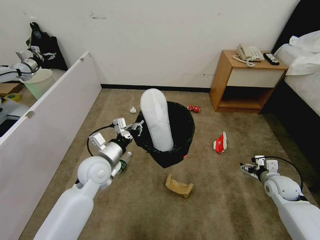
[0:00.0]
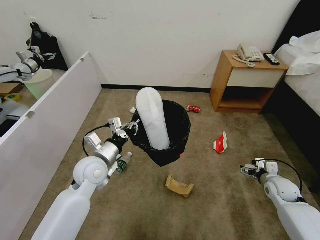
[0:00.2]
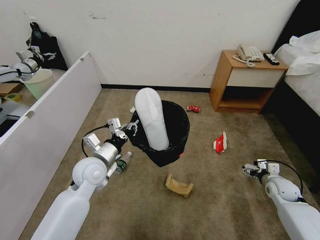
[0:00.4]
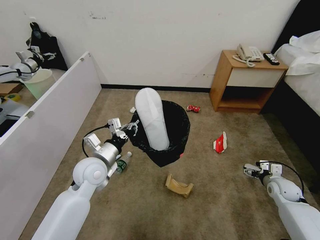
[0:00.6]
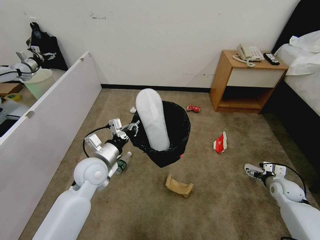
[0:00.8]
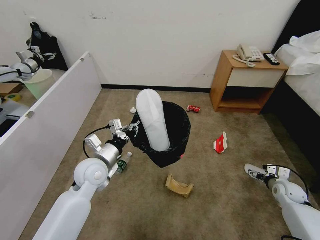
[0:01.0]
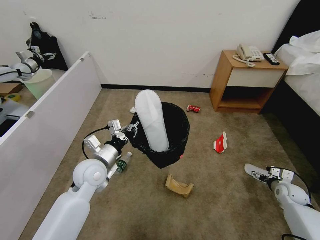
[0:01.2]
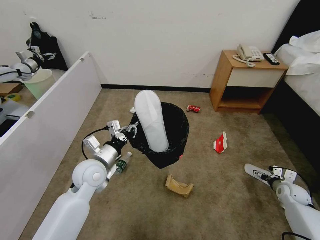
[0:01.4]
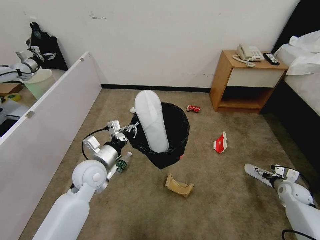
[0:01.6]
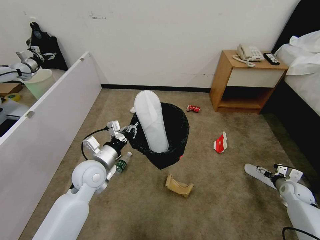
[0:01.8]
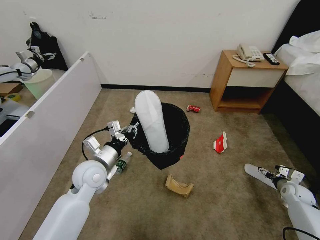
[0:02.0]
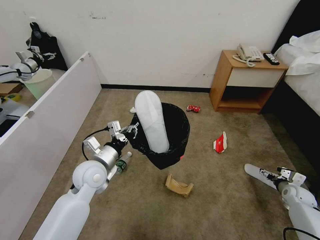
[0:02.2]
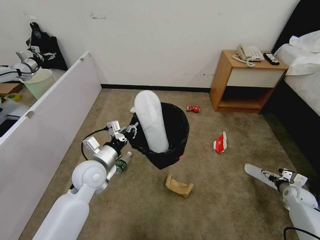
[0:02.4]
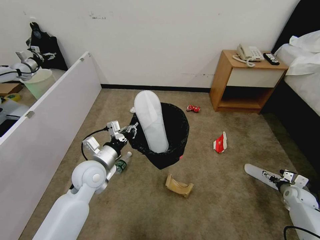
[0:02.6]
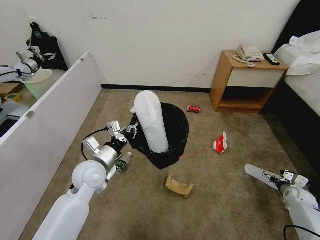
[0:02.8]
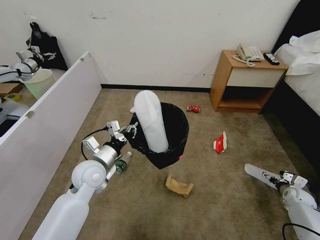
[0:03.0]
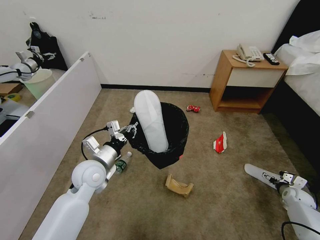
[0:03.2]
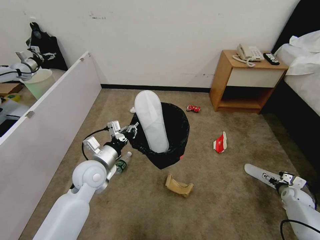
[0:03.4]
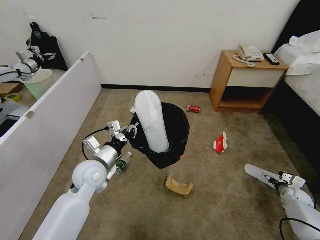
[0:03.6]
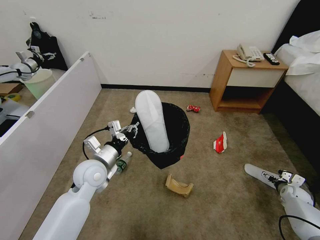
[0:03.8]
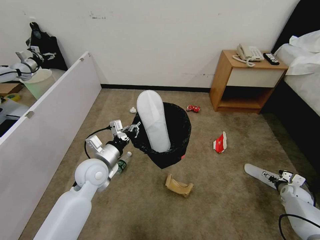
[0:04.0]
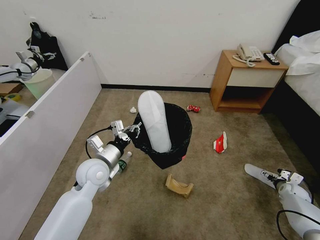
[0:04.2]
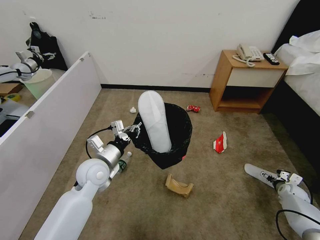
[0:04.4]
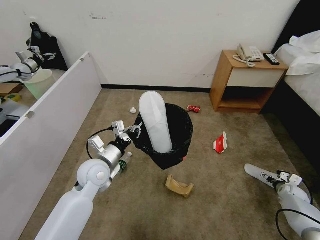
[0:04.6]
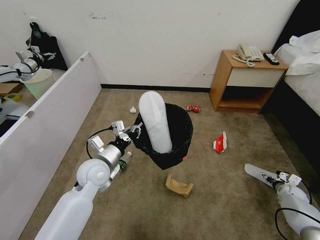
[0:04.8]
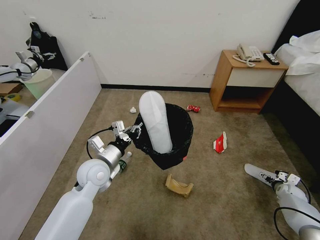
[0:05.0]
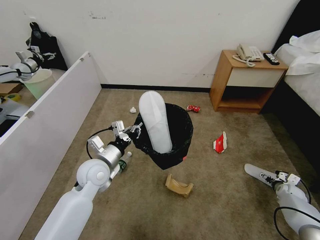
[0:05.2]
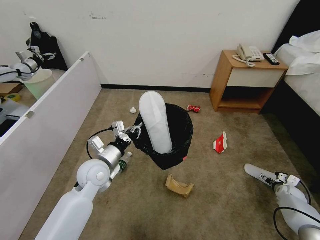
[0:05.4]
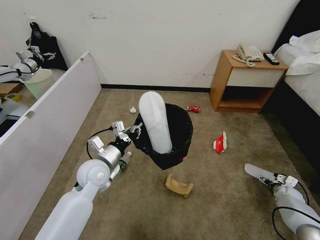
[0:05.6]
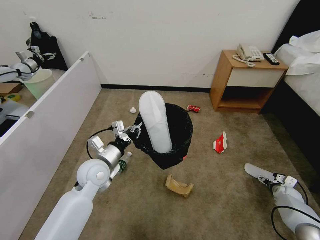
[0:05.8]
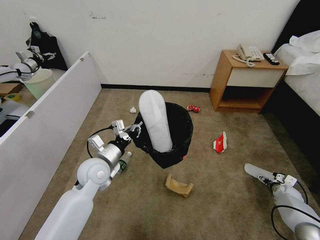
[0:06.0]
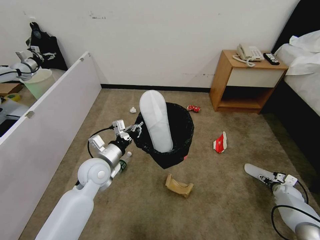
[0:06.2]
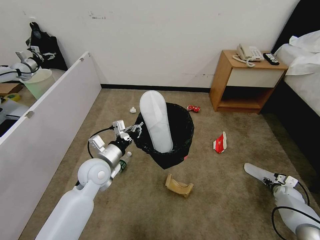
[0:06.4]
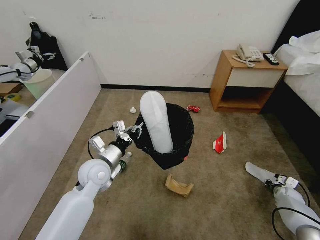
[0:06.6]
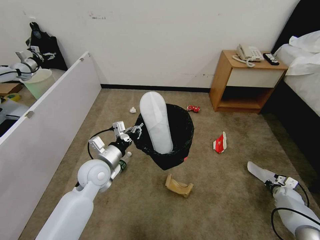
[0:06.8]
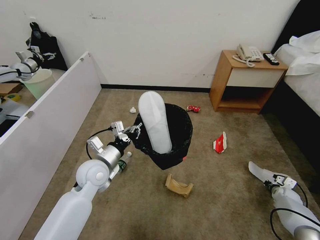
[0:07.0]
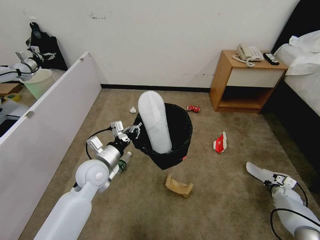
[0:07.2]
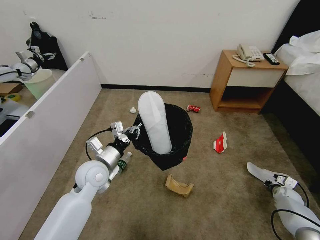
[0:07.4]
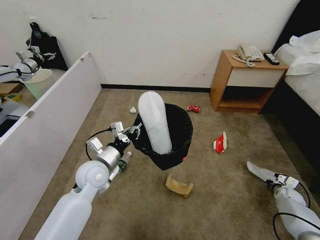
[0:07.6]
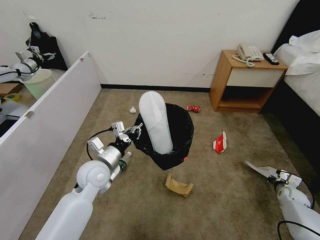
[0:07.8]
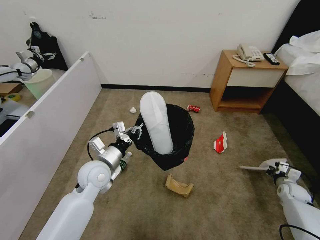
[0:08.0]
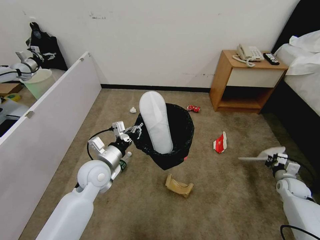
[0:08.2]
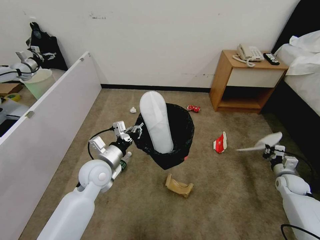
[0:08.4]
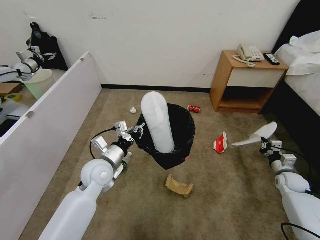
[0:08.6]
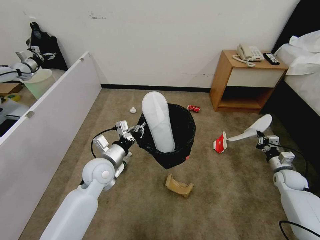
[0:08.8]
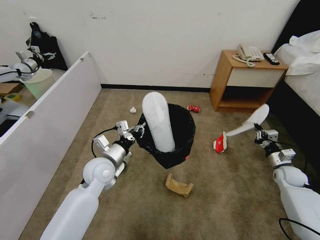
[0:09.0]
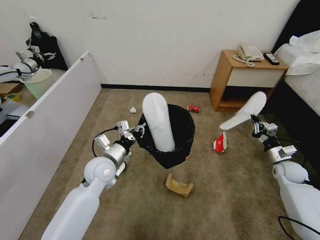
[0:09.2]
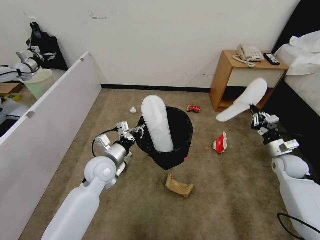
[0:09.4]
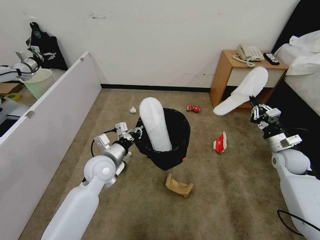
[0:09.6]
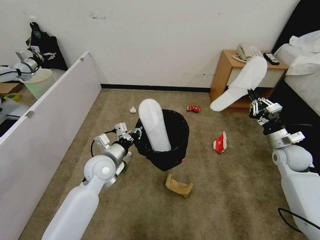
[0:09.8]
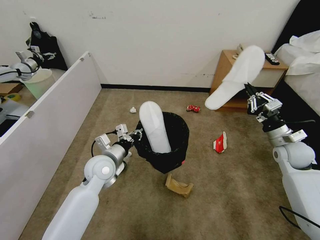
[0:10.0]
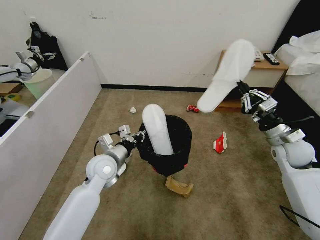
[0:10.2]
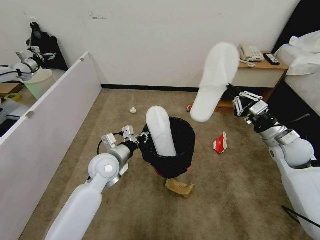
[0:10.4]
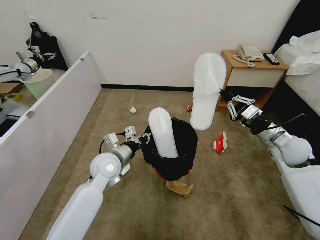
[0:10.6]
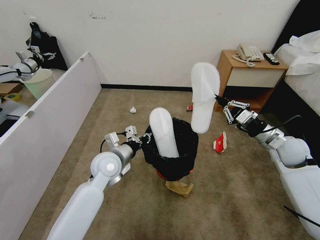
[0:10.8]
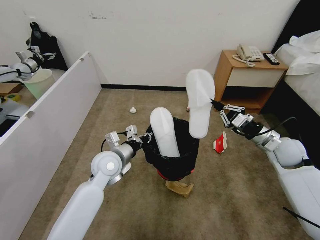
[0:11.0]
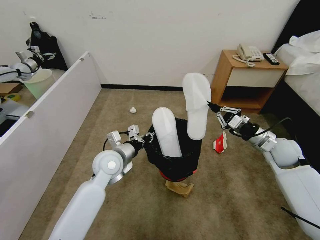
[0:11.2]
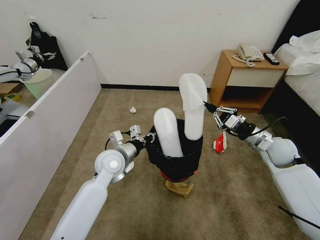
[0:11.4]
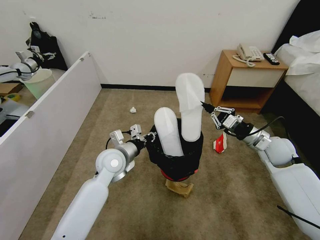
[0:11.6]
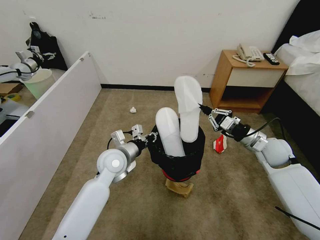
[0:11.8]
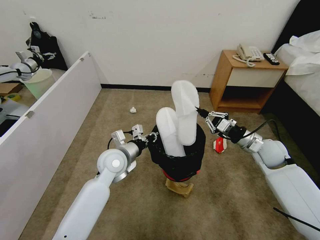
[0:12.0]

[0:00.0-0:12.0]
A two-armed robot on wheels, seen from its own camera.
Task of the whole recording: Pick up the trash bin, then pick up the garbage from the floor and place it into the trash bin.
0:00.0 to 0:01.6: The right gripper shifts some 10 cm to the right and downward.
0:01.6 to 0:03.0: The right gripper ends up some 5 cm from where it was.
0:03.0 to 0:06.0: The grippers move only a little.
0:06.0 to 0:07.6: The right gripper closes.
0:07.6 to 0:09.0: The right gripper moves upward and to the left, some 15 cm.
0:09.0 to 0:10.4: The right gripper heads upward and to the left, covering some 20 cm.
0:10.4 to 0:12.0: The right gripper moves roughly 5 cm.

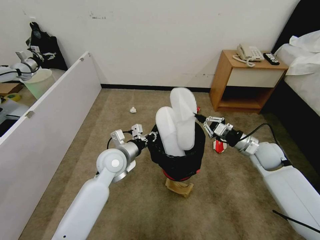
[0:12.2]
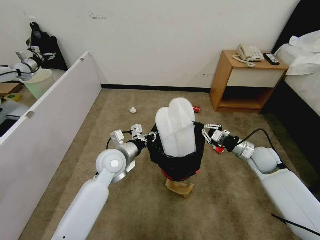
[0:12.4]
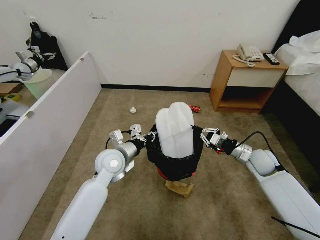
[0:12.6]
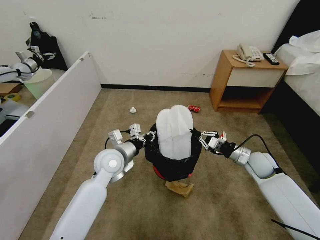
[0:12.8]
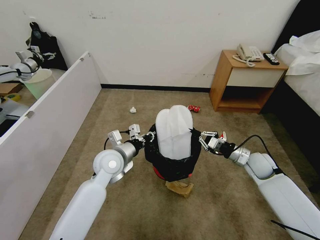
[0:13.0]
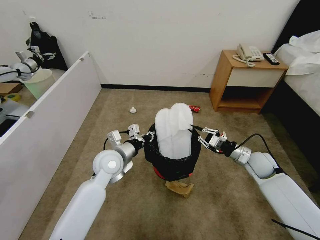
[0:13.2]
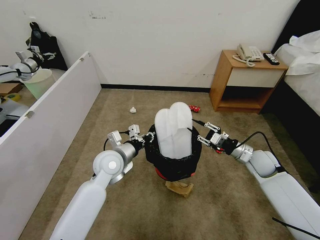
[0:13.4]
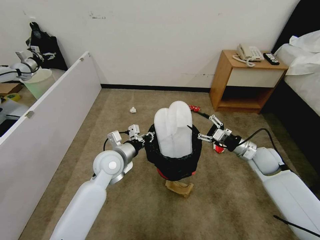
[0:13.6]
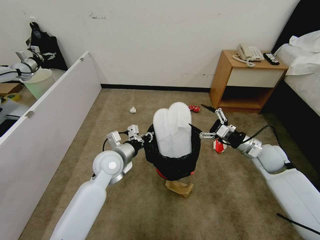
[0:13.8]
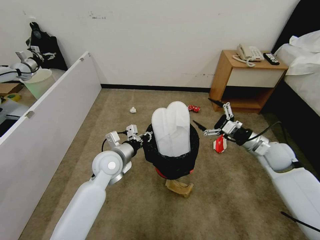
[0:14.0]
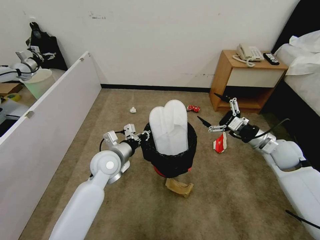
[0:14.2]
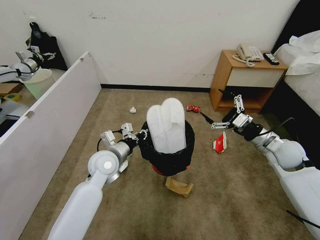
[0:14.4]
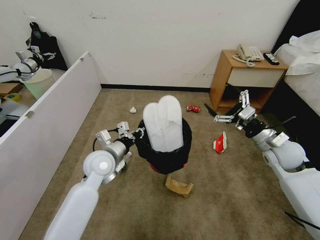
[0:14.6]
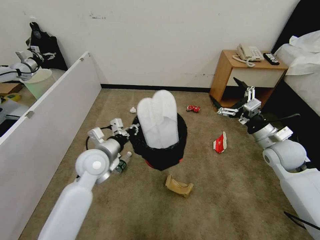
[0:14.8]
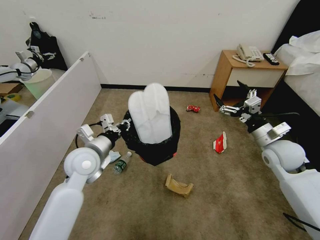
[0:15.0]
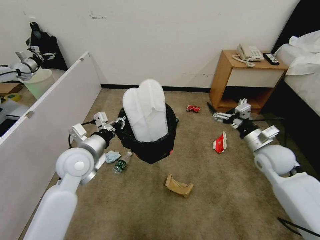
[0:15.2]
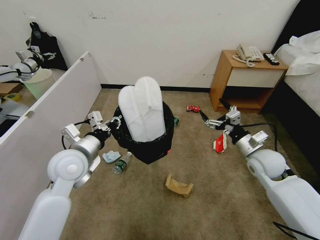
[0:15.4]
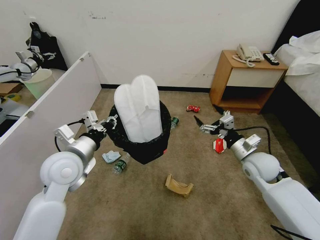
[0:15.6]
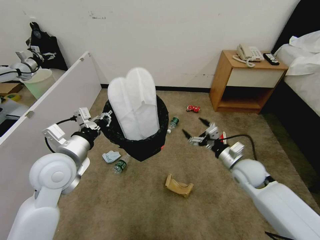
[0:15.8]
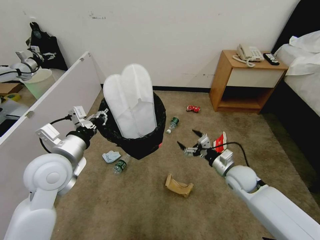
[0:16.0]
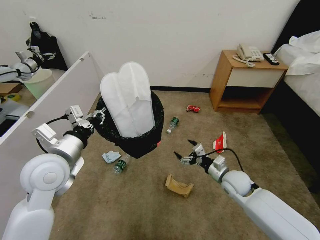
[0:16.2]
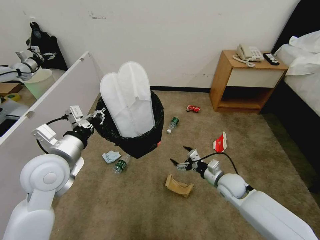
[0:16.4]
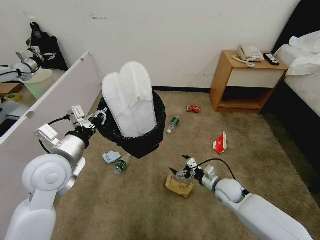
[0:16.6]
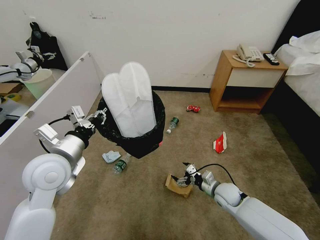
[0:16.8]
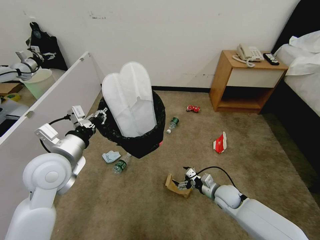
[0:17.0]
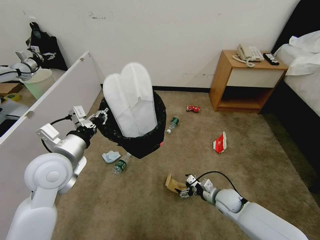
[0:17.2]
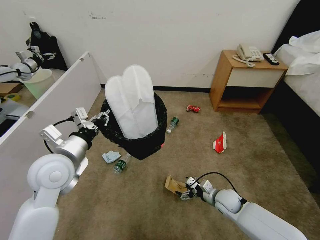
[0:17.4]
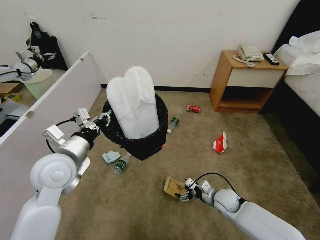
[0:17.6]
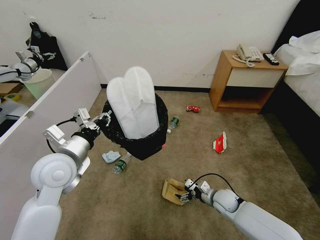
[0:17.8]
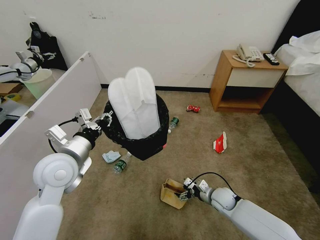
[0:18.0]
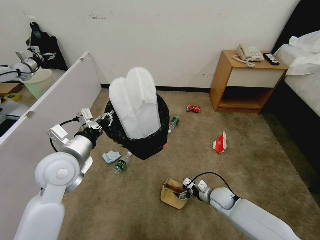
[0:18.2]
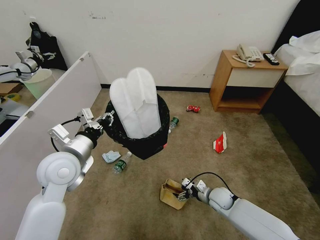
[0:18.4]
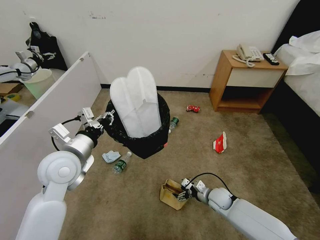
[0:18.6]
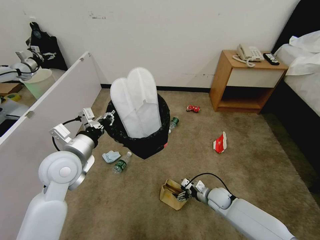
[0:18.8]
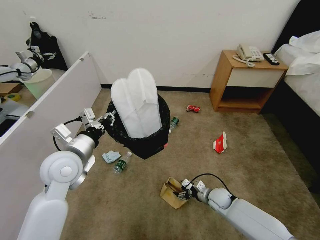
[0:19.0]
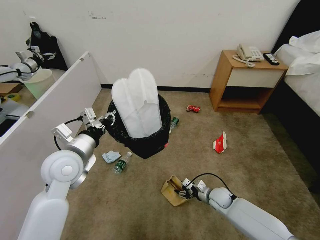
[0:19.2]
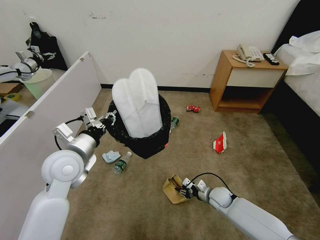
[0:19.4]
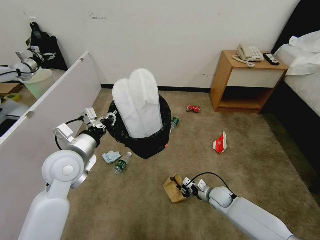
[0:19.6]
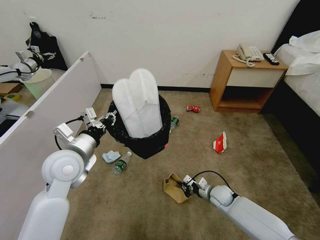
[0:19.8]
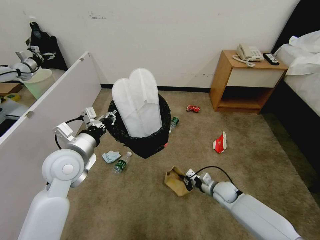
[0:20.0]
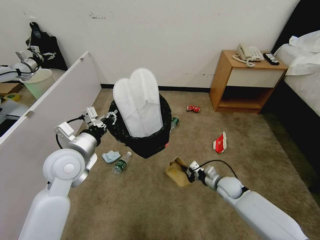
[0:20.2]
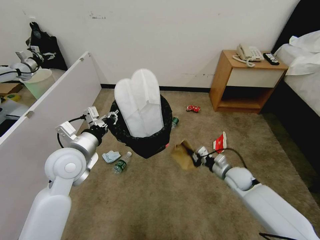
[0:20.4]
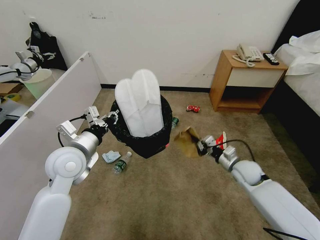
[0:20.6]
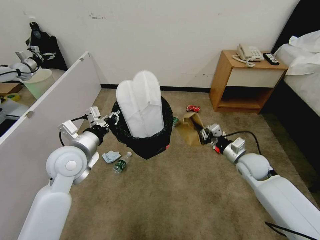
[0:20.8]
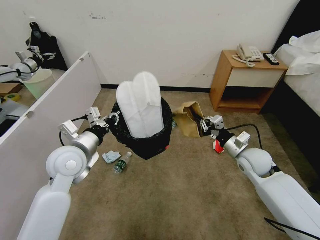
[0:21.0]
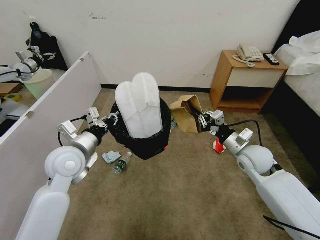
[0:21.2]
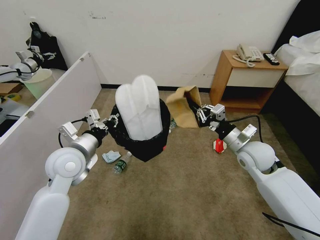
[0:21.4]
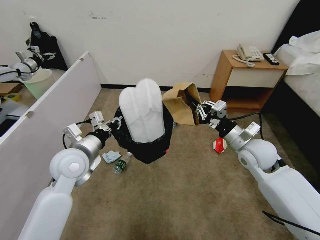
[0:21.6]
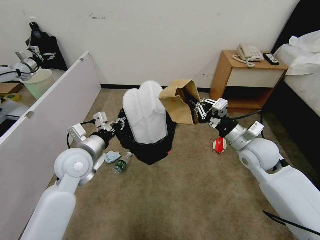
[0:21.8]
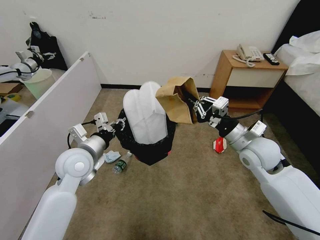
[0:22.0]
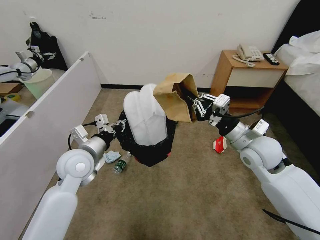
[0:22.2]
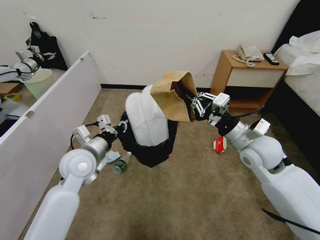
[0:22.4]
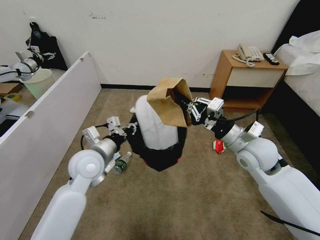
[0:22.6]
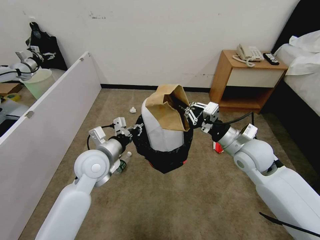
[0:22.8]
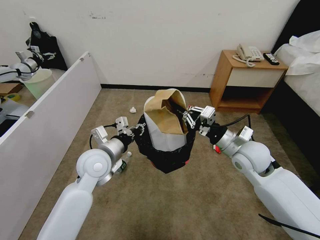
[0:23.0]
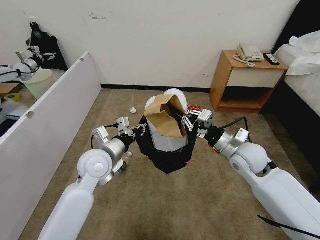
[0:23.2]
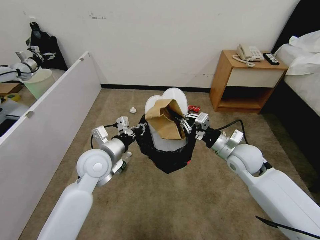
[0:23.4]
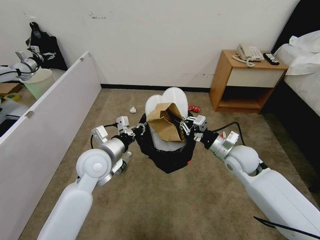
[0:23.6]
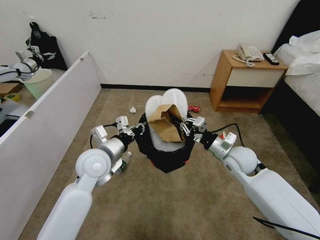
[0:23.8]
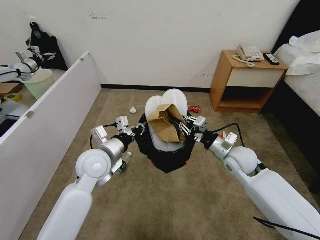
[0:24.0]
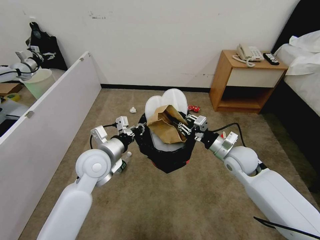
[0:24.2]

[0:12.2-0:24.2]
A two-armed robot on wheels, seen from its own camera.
Task of the whole recording: Pick up the trash bin, then pick up the garbage from the floor and place it into the trash bin.
0:12.2 to 0:13.8: The right gripper opens.
0:13.8 to 0:15.2: The left gripper shifts some 10 cm to the left and upward.
0:15.2 to 0:16.6: The left gripper moves backward, some 5 cm; the right gripper heads downward and to the left, covering roughly 20 cm.
0:16.6 to 0:18.2: The right gripper travels downward by some 5 cm.
0:18.2 to 0:19.8: The right gripper closes.
0:19.8 to 0:21.2: The right gripper moves upward, roughly 25 cm.
0:21.2 to 0:22.6: The left gripper moves some 5 cm. Meanwhile the right gripper heads upward, covering approximately 5 cm.
0:22.6 to 0:24.2: The right gripper goes approximately 10 cm downward.
